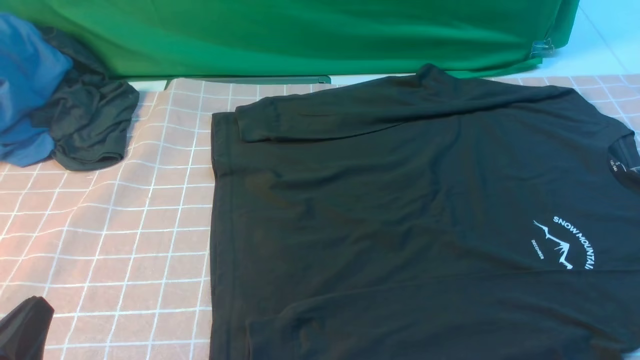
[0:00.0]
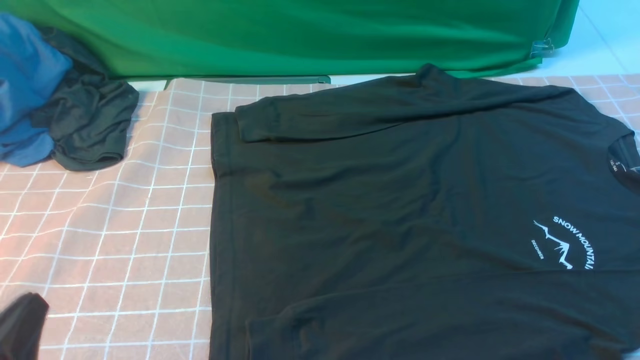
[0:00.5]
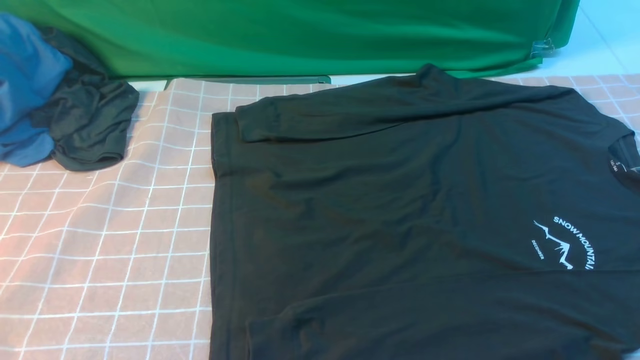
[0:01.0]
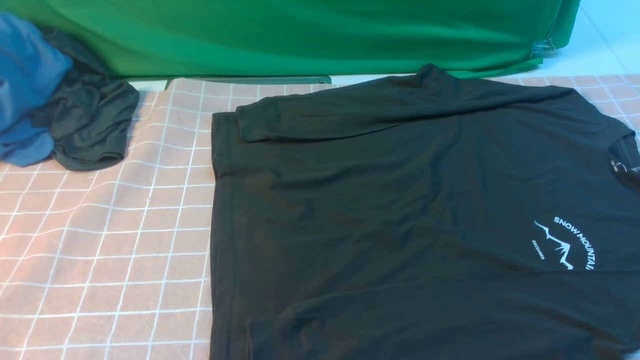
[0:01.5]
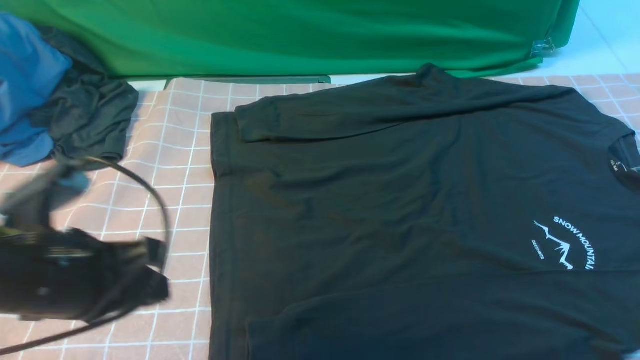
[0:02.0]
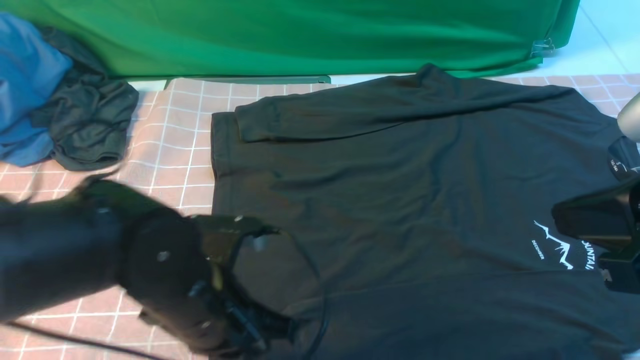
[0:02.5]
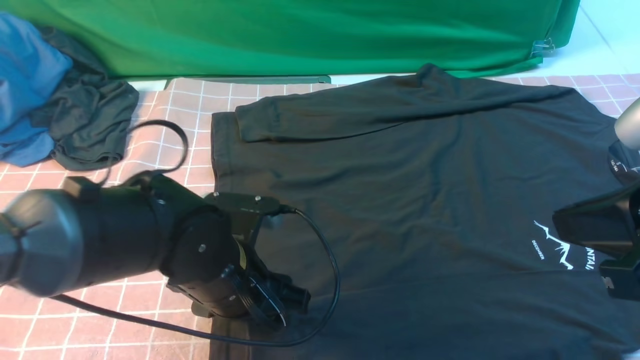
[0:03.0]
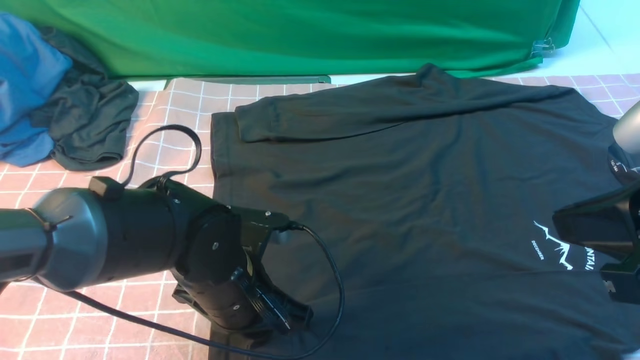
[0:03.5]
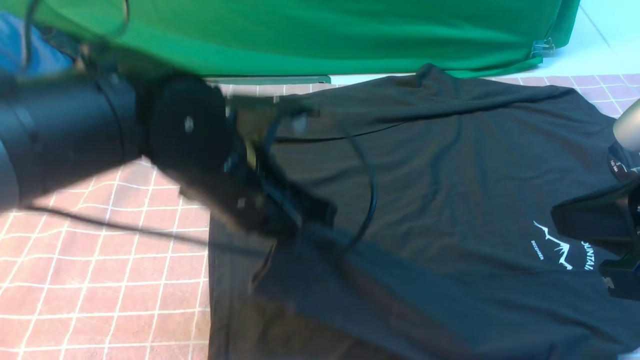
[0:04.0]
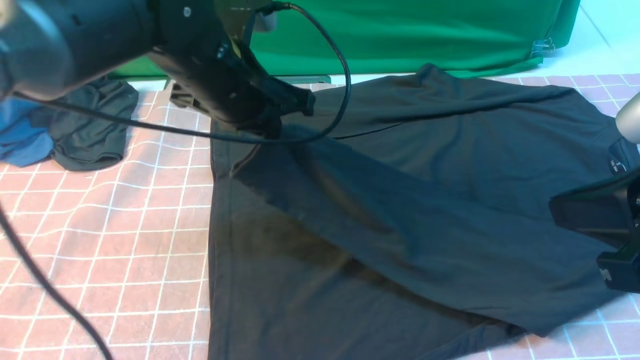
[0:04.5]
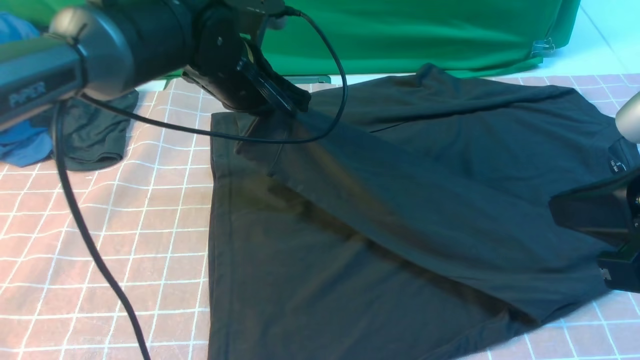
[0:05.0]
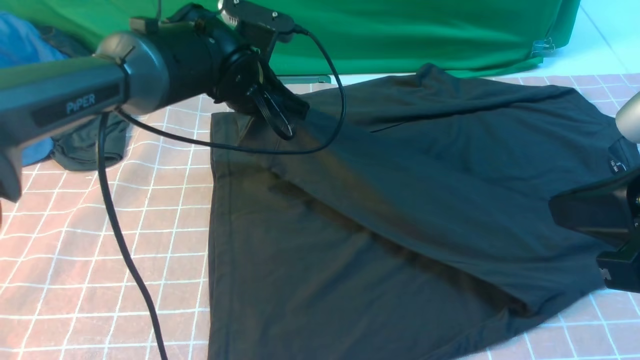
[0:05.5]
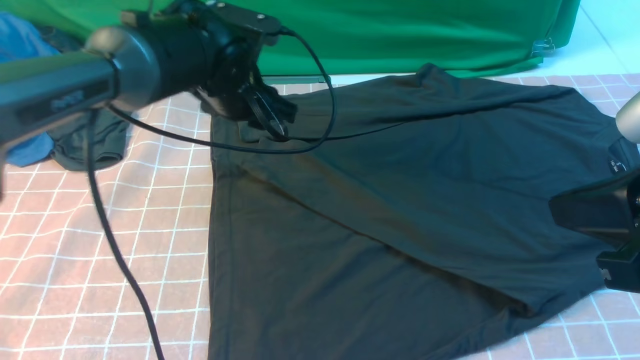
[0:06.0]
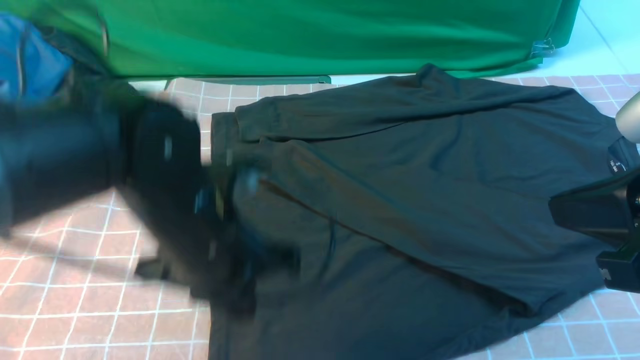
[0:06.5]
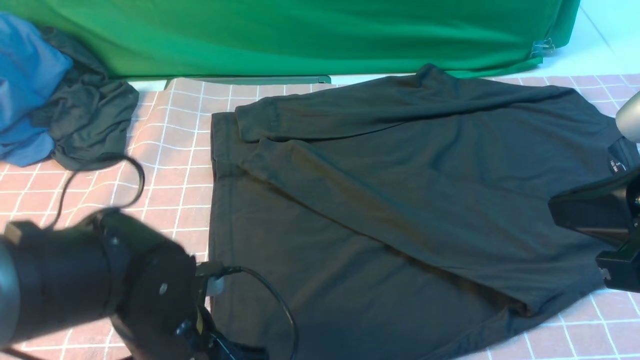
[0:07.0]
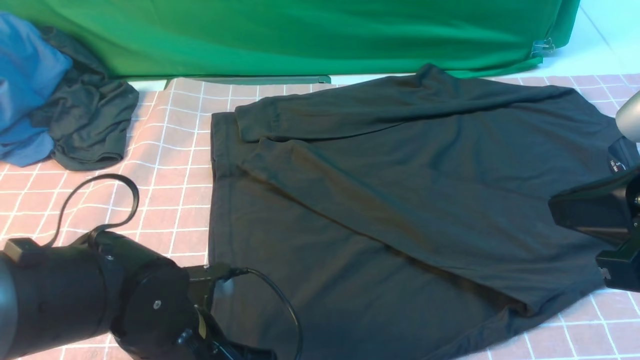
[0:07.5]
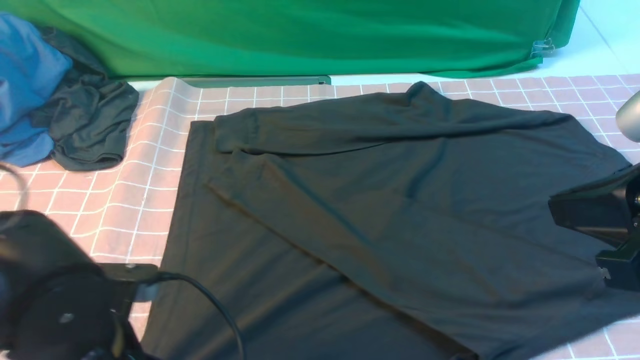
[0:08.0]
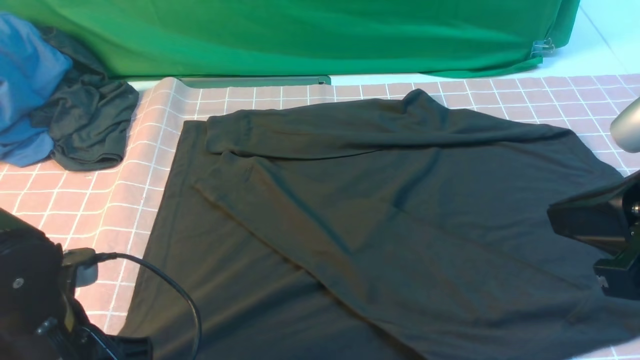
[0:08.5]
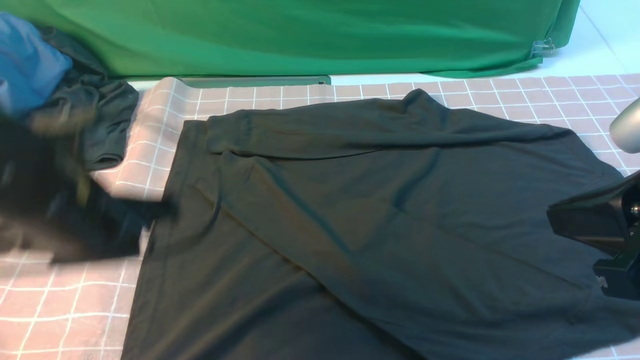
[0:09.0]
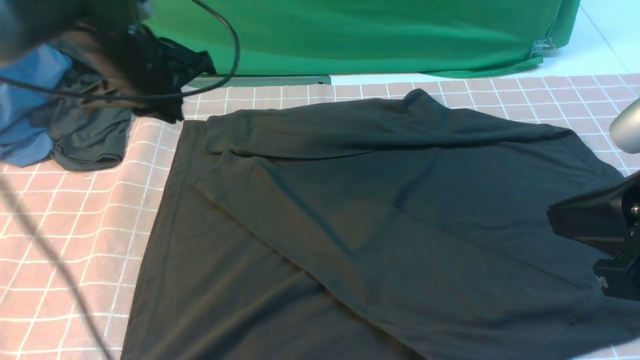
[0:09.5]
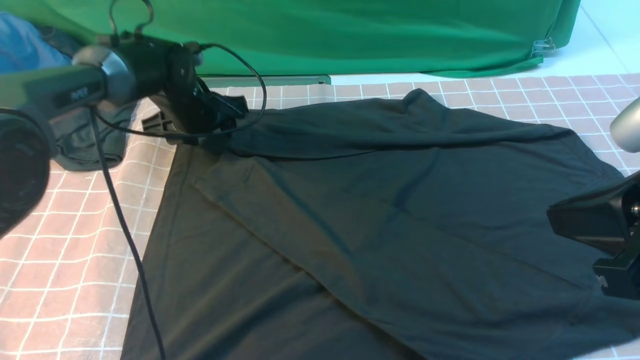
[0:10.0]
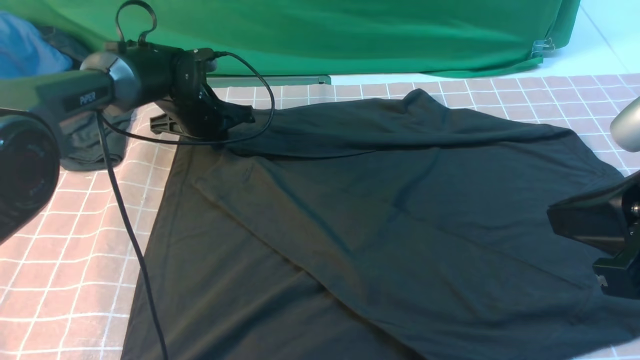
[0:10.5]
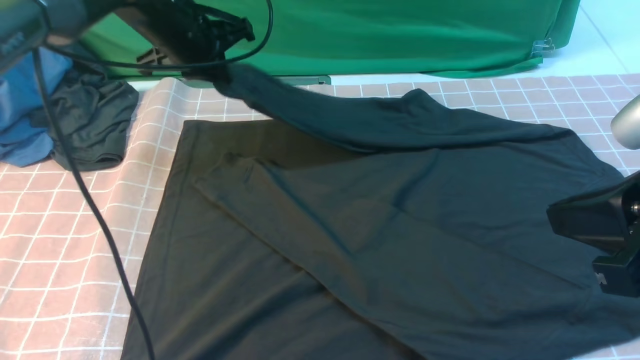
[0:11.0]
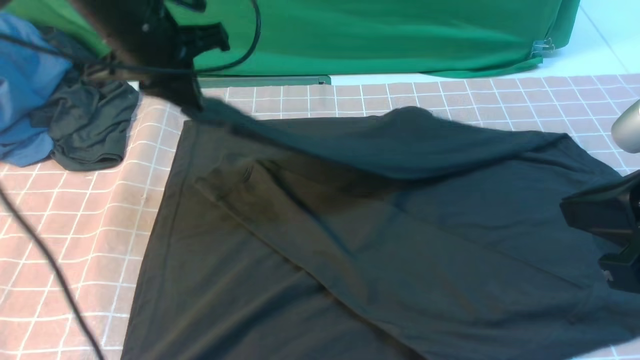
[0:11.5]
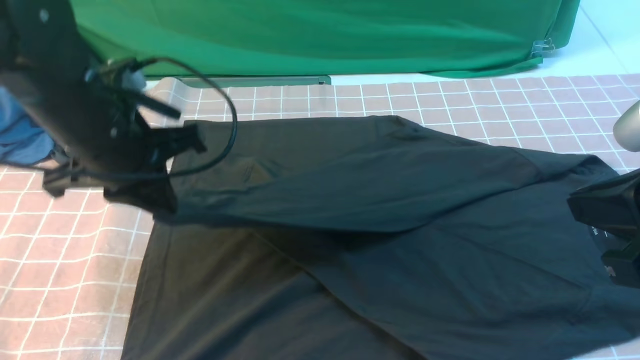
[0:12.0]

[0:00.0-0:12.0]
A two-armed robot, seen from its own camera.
Step, 0:00.0 to 0:03.0: use the left arm to clamp the cuff closest to it.
Step, 0:04.0 to 0:06.0: use the left arm to drag and place the cuff at the centered position on the left edge of the fabric.
Step, 0:06.5 to 0:10.5: use the left arm to clamp the cuff farthest from it.
0:00.0 to 0:02.0: The left gripper moves forward and upward, about 15 cm.
0:02.0 to 0:04.0: The left gripper goes some 15 cm to the right and forward, and opens and closes again; the right gripper moves some 5 cm.
0:04.0 to 0:06.0: The left gripper travels forward by roughly 15 cm, and opens.
0:06.0 to 0:08.0: The left gripper goes about 25 cm backward, and closes.
0:08.0 to 0:10.0: The left gripper moves forward, approximately 35 cm, and opens up.
0:10.0 to 0:12.0: The left gripper is displaced backward and upward by some 20 cm, and closes up.

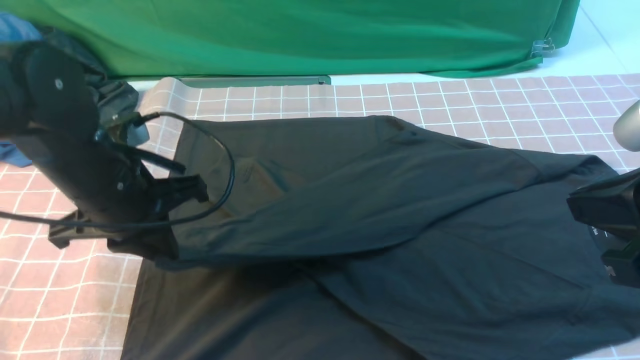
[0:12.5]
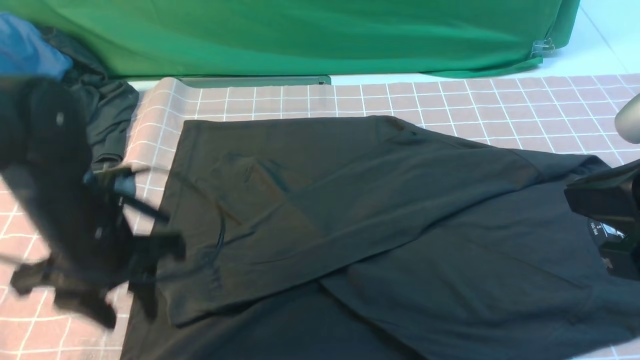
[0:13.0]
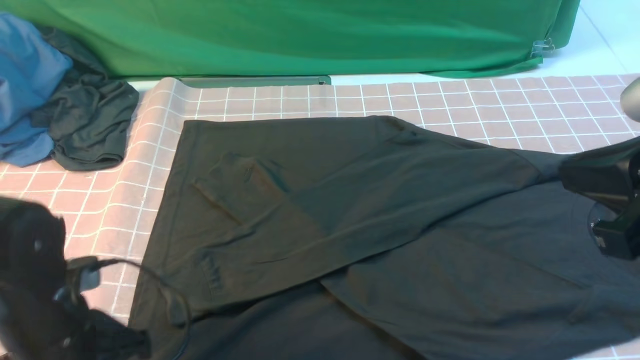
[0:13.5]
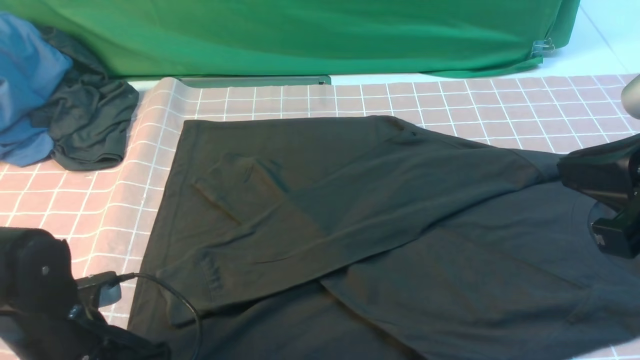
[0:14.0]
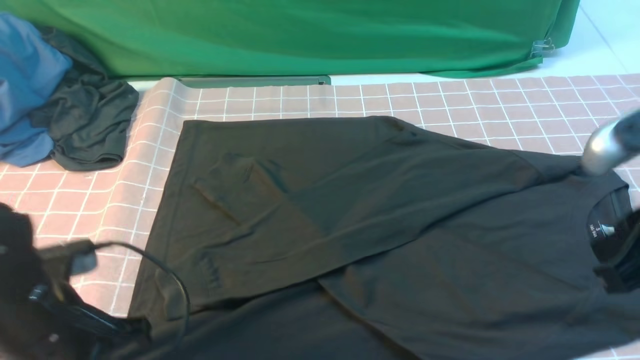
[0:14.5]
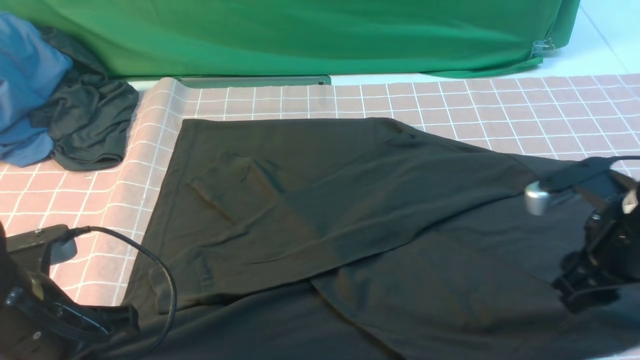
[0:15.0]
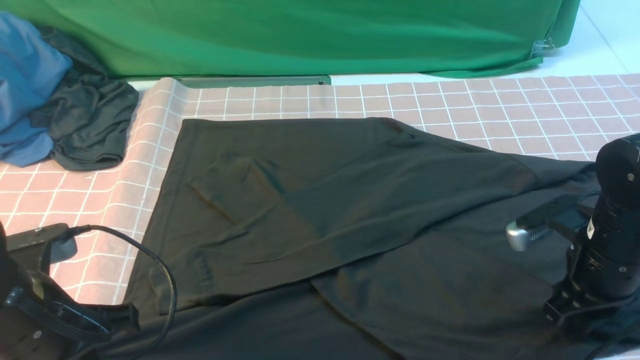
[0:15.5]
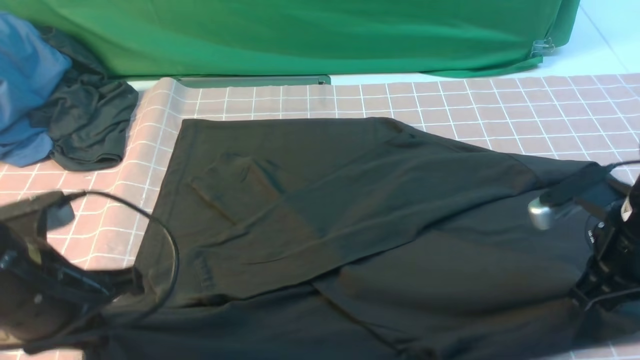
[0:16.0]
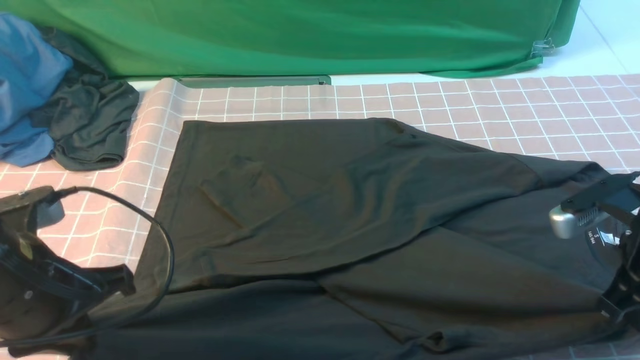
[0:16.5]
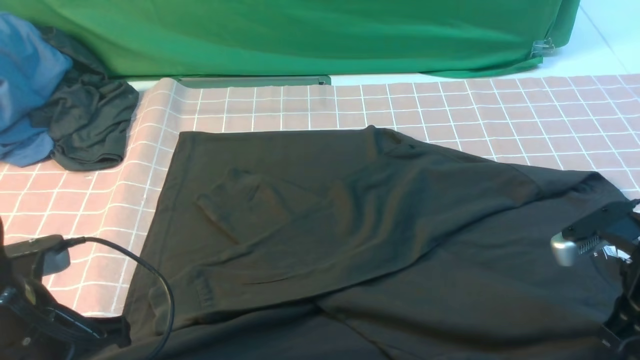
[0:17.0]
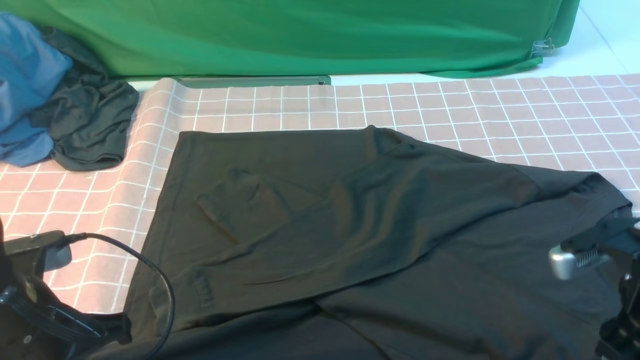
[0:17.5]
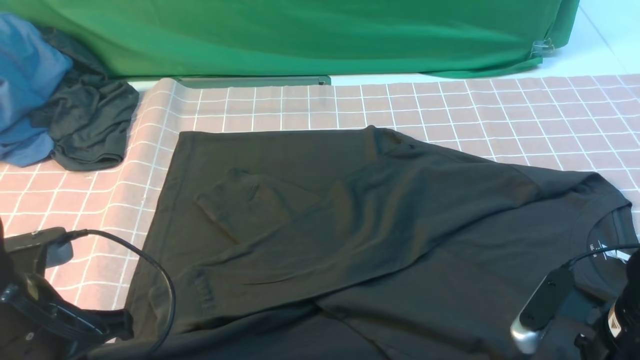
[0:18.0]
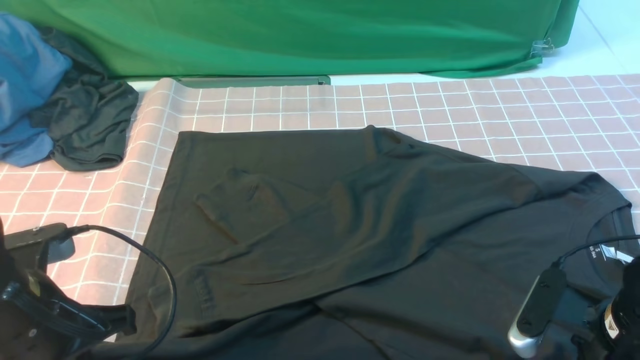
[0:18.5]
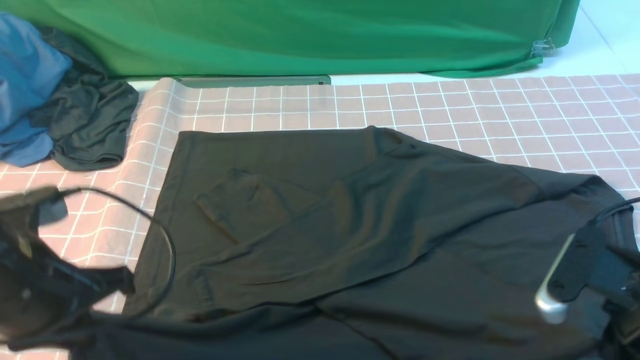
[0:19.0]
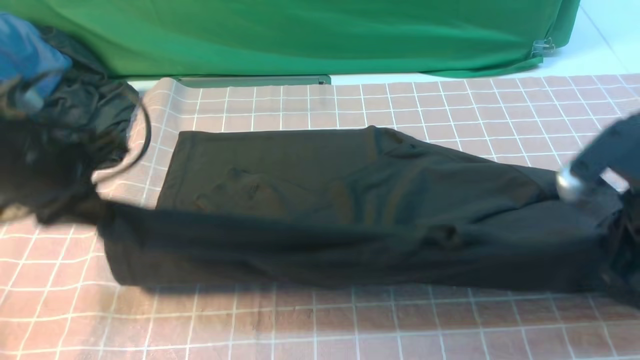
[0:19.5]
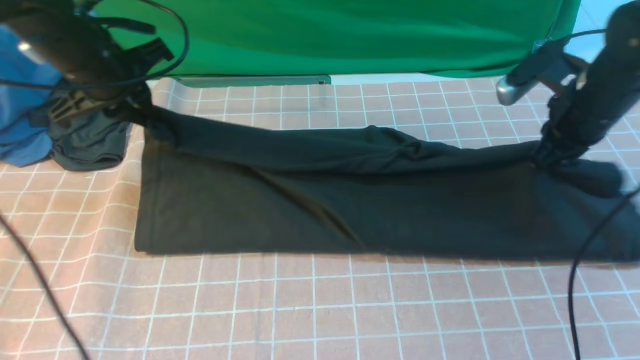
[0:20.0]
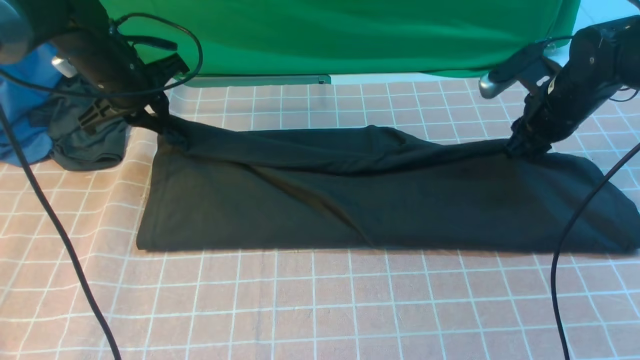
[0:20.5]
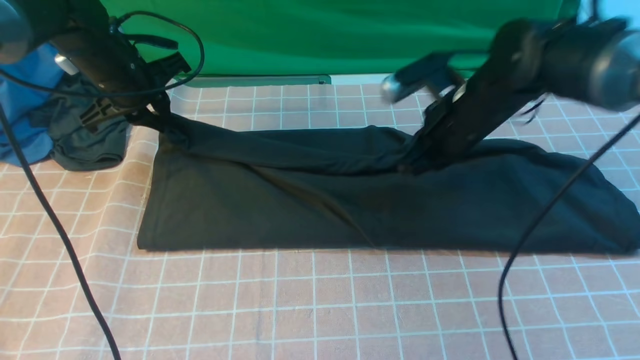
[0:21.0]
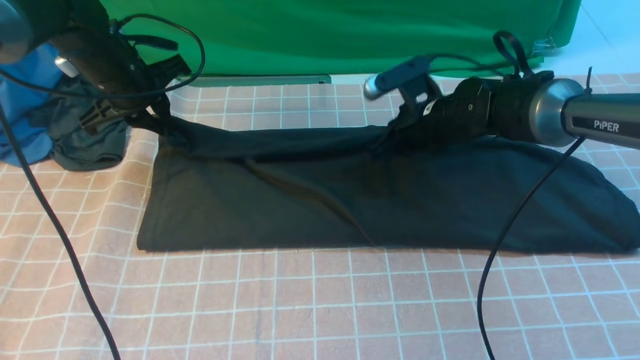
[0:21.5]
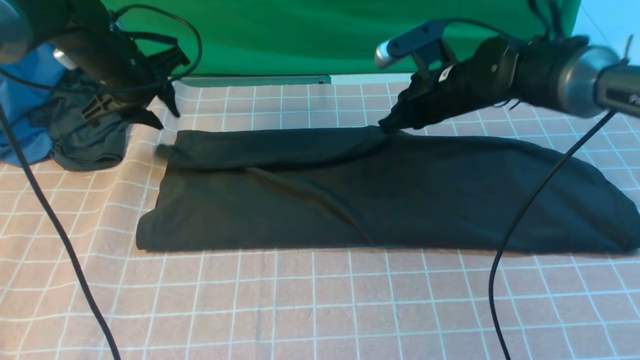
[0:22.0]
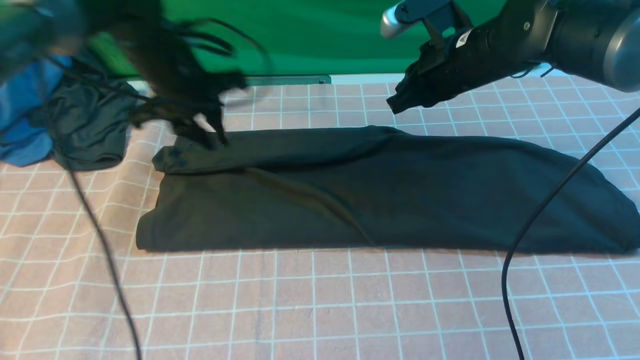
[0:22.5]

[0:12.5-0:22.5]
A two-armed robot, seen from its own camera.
Step, 0:13.0 to 0:18.0: use both arms simultaneously to clamp the lower edge of the clothing fabric.
Step, 0:18.5 to 0:22.0: use both arms to drag the lower edge of the fabric forward and fold it over the upper edge.
0:12.5 to 0:14.5: The right gripper ends up about 5 cm from where it was, while the left gripper shifts some 10 cm backward, and opens and closes again.
0:14.5 to 0:16.5: The right gripper travels downward by some 10 cm, and opens, then closes once more. Meanwhile the left gripper is displaced upward by about 5 cm.
0:16.5 to 0:18.5: The right gripper heads downward and backward, covering roughly 10 cm, and opens, then closes once more.
0:18.5 to 0:20.5: The grippers both shift forward by about 25 cm.
0:20.5 to 0:22.5: The right gripper heads to the left, covering roughly 10 cm, and closes its fingers; the left gripper goes some 10 cm to the right, and opens.
